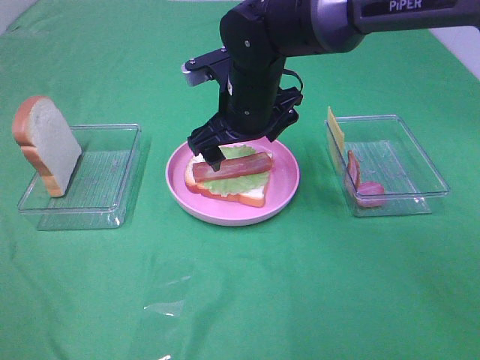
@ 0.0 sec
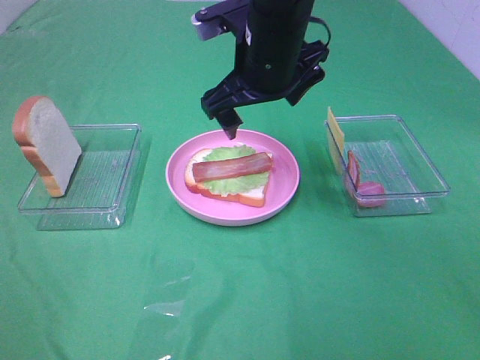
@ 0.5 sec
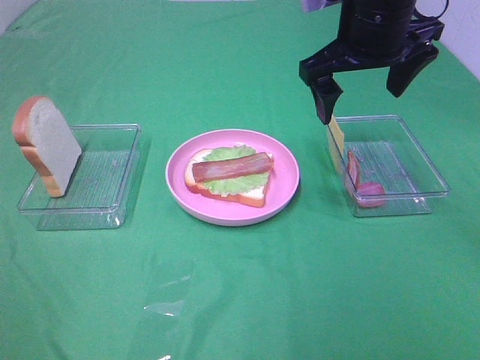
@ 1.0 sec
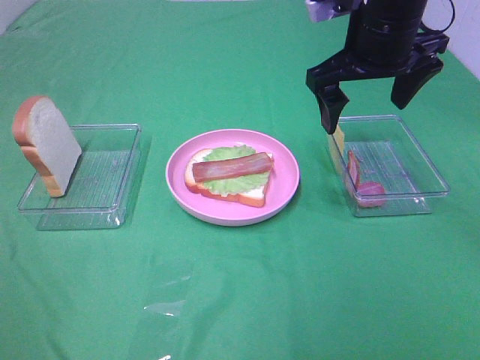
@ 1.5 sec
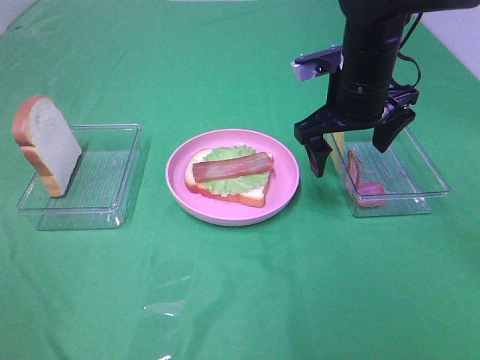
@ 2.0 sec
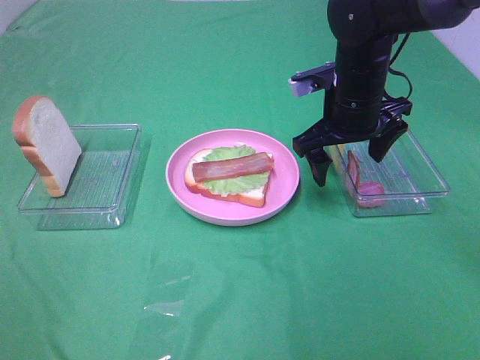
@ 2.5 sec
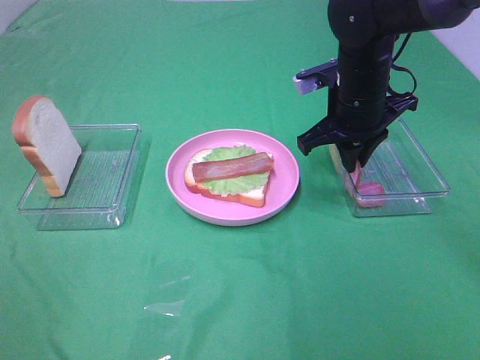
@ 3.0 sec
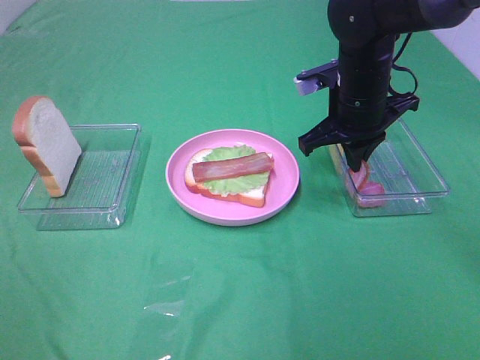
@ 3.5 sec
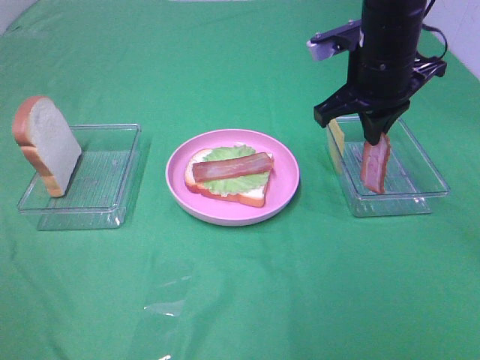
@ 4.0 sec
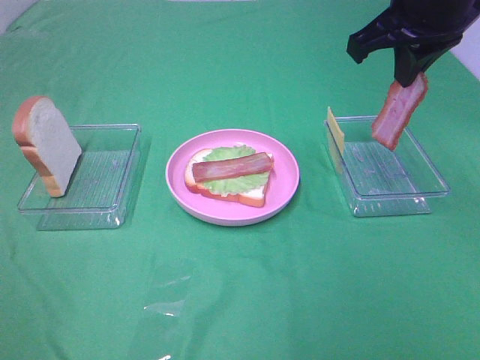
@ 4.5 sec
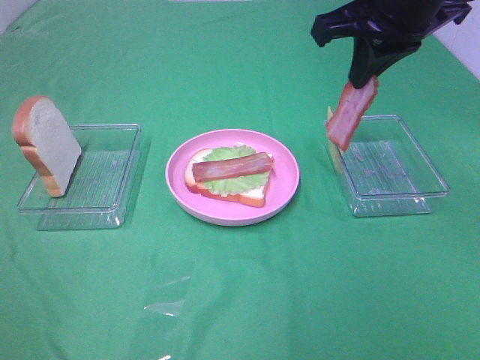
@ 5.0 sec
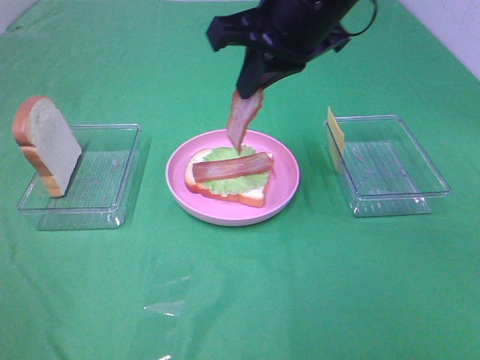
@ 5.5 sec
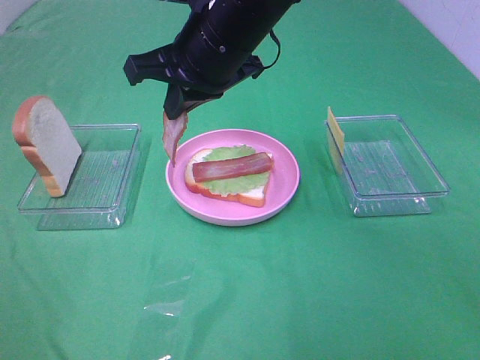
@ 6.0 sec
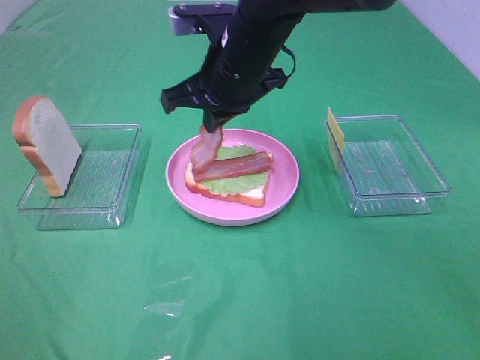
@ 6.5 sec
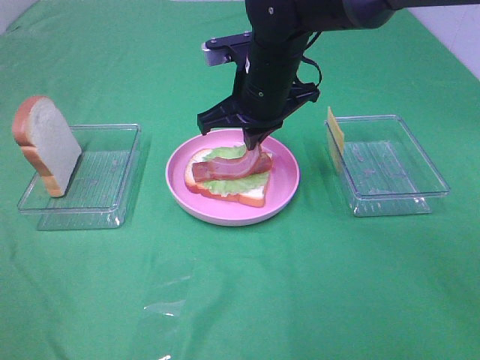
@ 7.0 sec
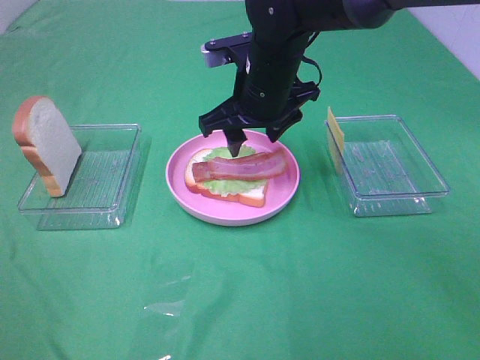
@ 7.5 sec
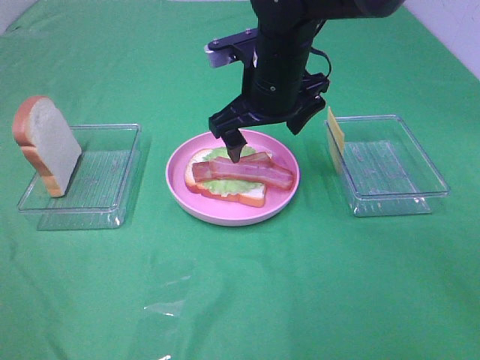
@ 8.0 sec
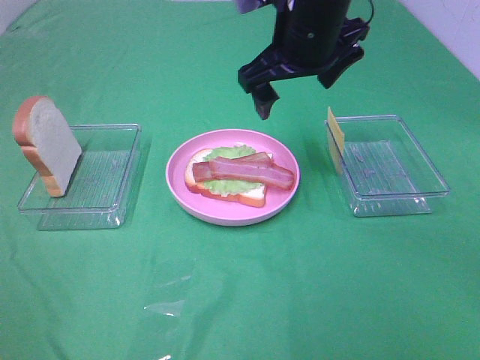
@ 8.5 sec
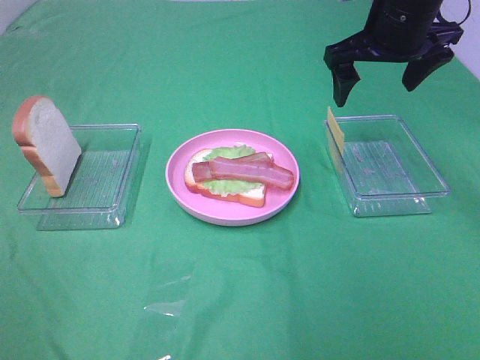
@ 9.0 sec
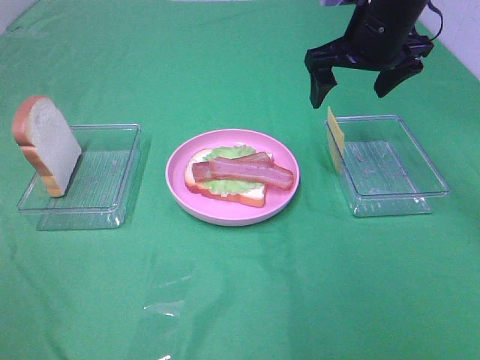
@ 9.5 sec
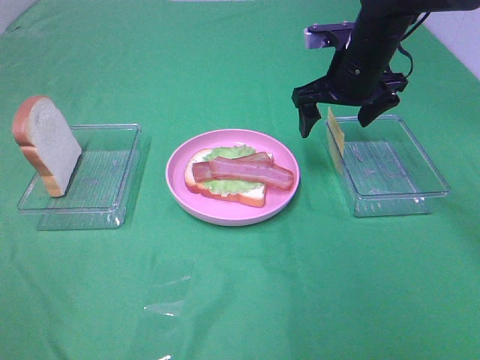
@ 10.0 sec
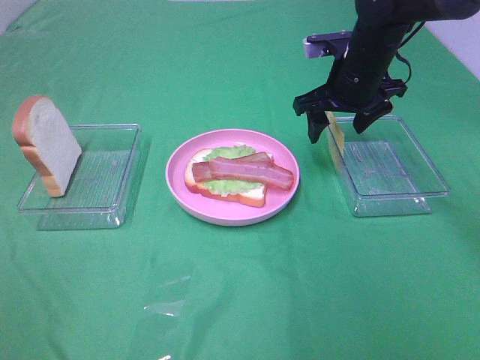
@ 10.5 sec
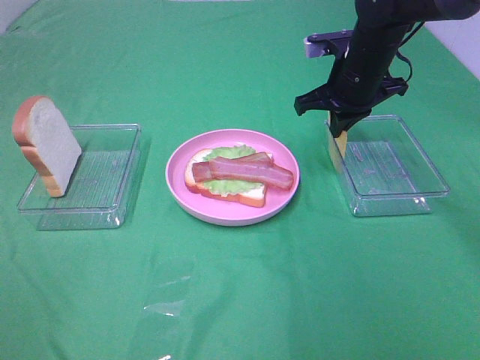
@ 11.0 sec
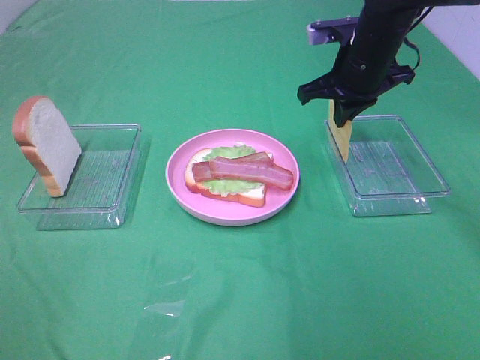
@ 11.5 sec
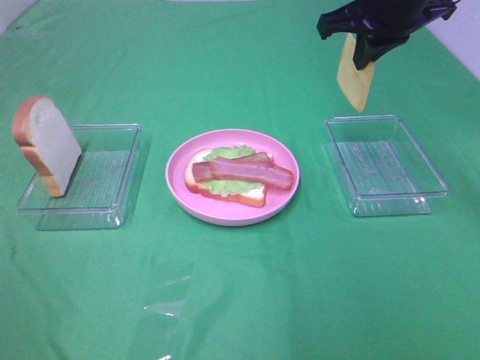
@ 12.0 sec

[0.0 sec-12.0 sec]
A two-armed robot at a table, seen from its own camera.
Task of the whole recording: Make sandwiches.
Step, 0.0 sec to 3.0 sec: Right hand:grab the bacon.
Step, 3.5 sec to 7.5 sec: Right hand:place bacon on bacon.
Step, 8.0 sec to 10.5 sec: Right hand:grab the cheese slice.
0.0 sec to 2.0 sec: The right gripper travels to the right by approximately 15 cm.
2.0 sec to 4.0 sec: The right gripper closes its fingers.
4.0 sec to 6.0 sec: The right gripper moves to the left, some 15 cm.
6.0 sec to 8.0 sec: The right gripper goes roughly 5 cm downward and to the right, and opens its fingers.
8.0 sec to 10.0 sec: The right gripper shifts some 15 cm to the right and forward.
10.0 sec to 12.0 sec: The right gripper heads upward, covering about 10 cm, and closes its fingers.

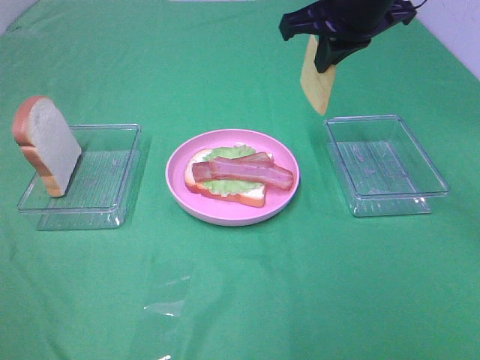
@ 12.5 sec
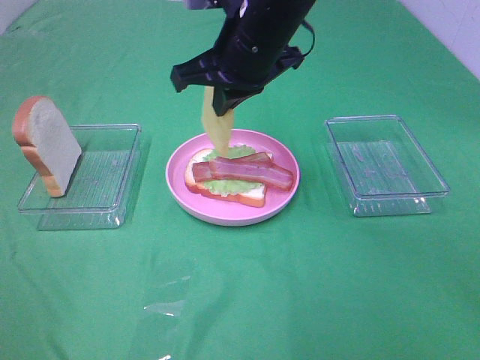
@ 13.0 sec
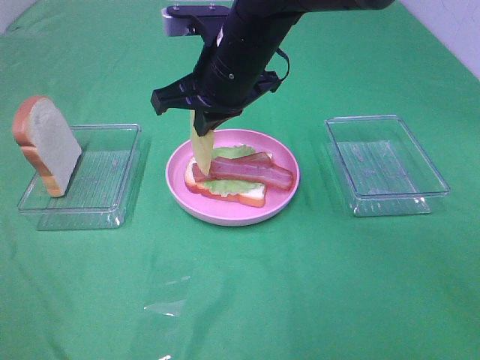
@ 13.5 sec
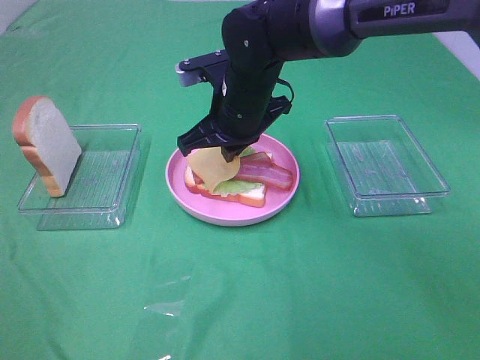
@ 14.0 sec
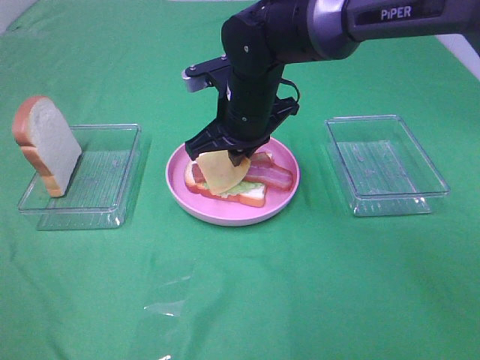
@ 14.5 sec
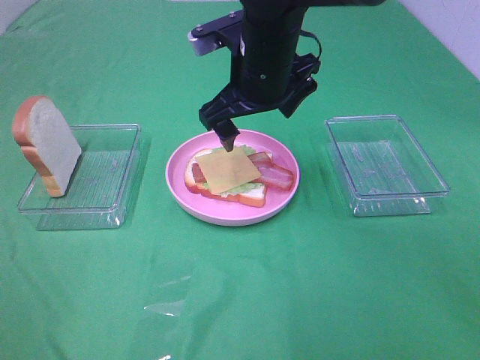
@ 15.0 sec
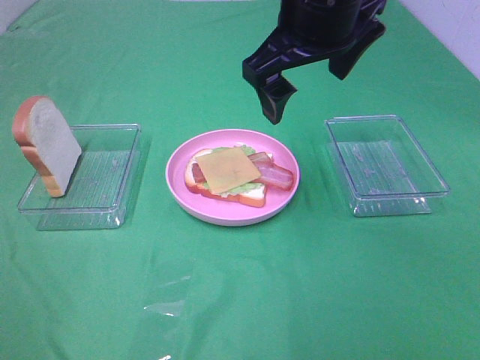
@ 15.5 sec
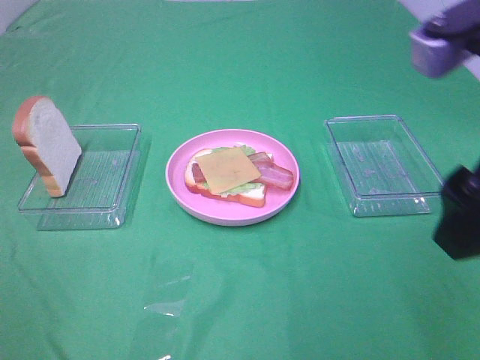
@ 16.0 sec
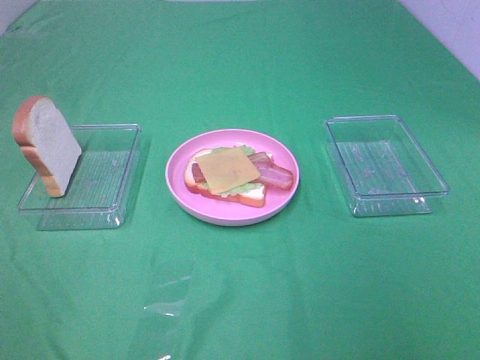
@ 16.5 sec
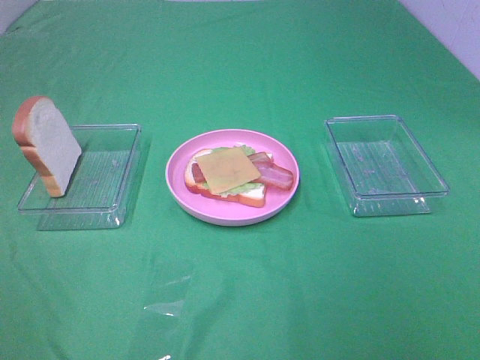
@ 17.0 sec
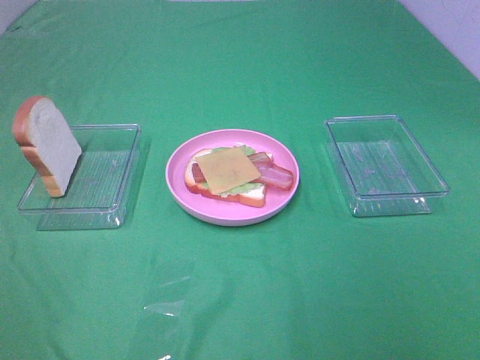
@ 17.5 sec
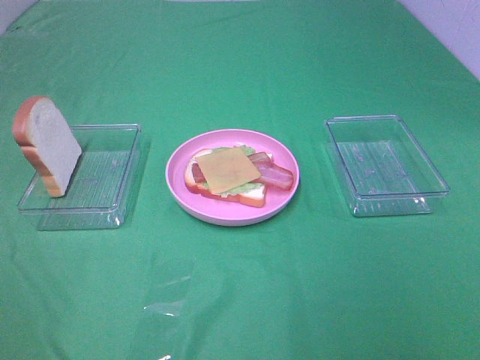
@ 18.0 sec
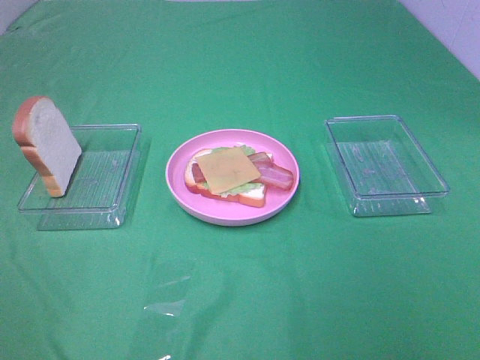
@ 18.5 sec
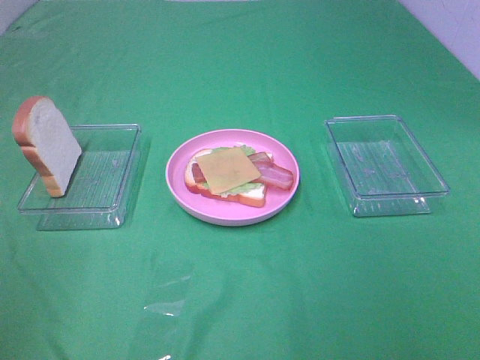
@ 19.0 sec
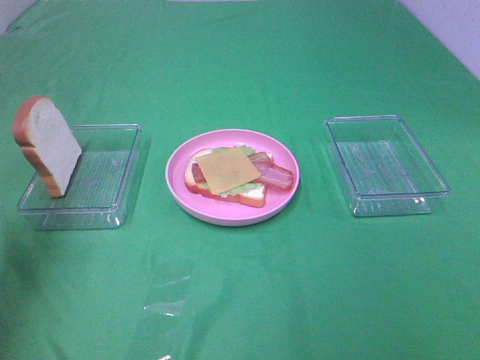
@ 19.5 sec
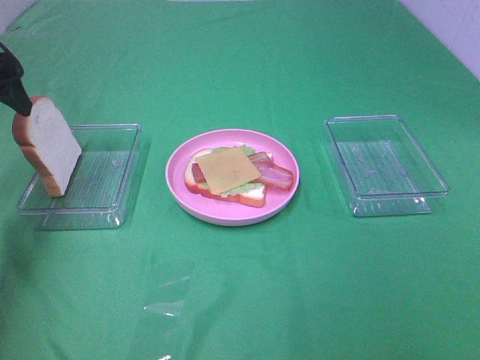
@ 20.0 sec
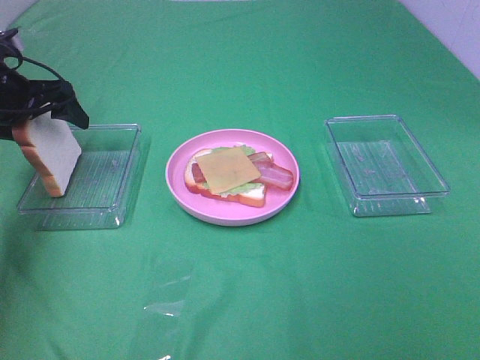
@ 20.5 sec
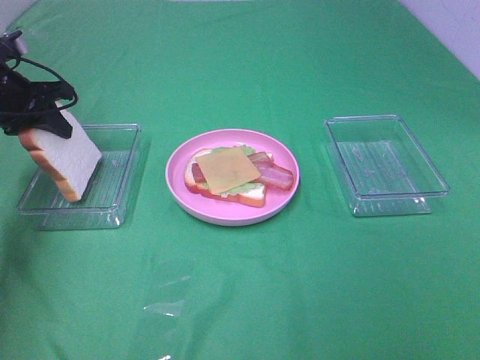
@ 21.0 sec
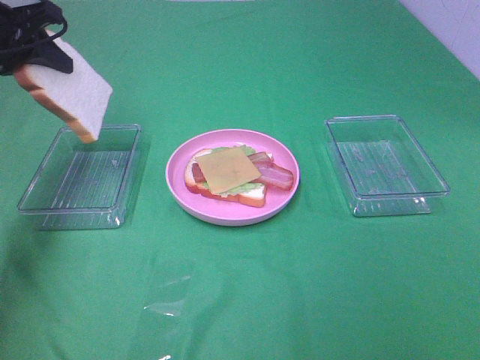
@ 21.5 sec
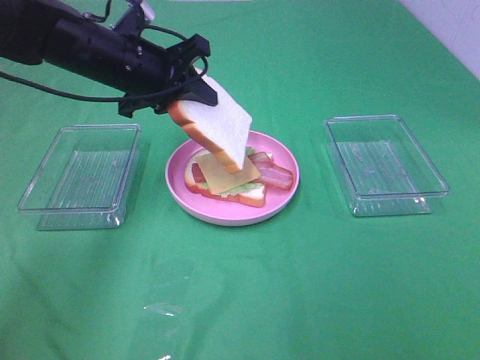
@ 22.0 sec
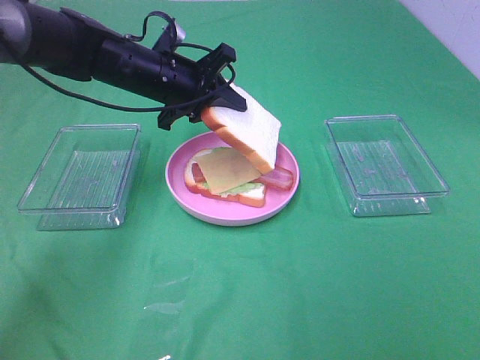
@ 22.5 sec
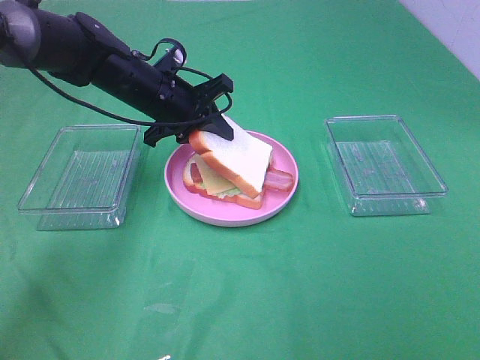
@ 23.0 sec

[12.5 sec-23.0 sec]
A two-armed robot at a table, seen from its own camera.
Task of the whole recording: Make sandwiches.
Step, 12.5 sec to 14.5 sec: Right hand:place the cheese slice on top of the bacon.
Step, 15.0 sec to 20.5 sec: Left hand:grab the bread slice.
12.5 sec to 14.5 sec: The right gripper shifts roughly 15 cm downward and to the left.
14.5 sec to 16.5 sec: The right gripper moves backward and to the right, approximately 40 cm, and opens its fingers.
19.0 sec to 21.0 sec: The left gripper is displaced forward and downward by about 40 cm, and closes up.
21.0 sec to 23.0 sec: The left gripper shifts approximately 20 cm to the right.

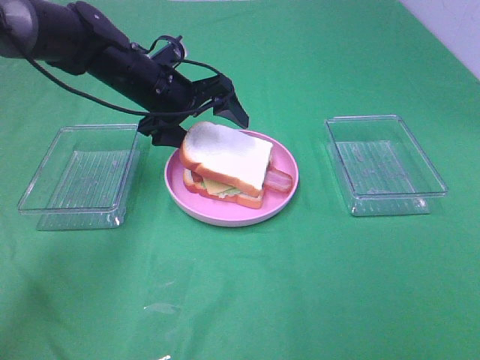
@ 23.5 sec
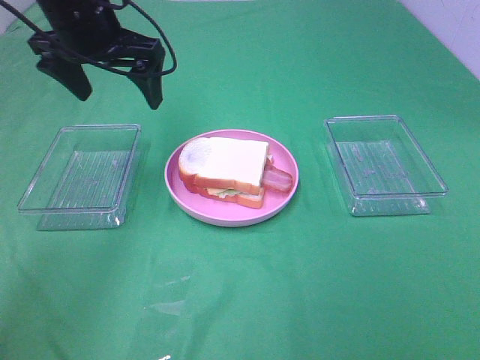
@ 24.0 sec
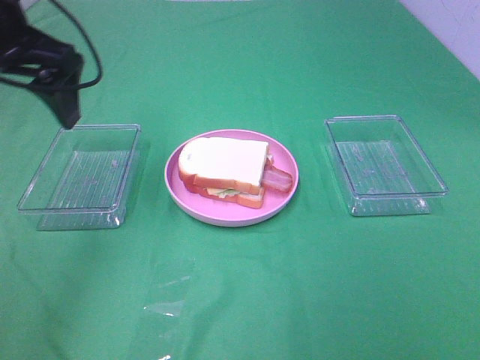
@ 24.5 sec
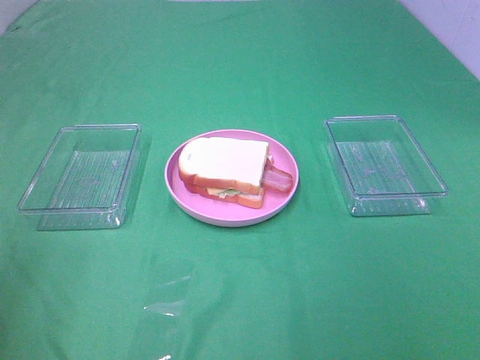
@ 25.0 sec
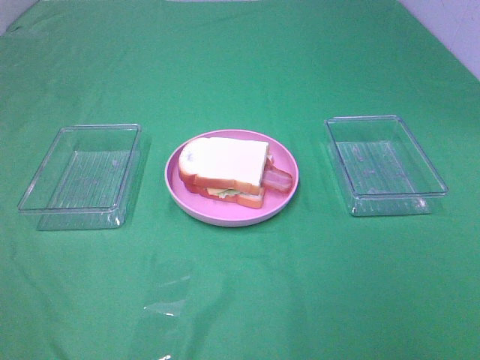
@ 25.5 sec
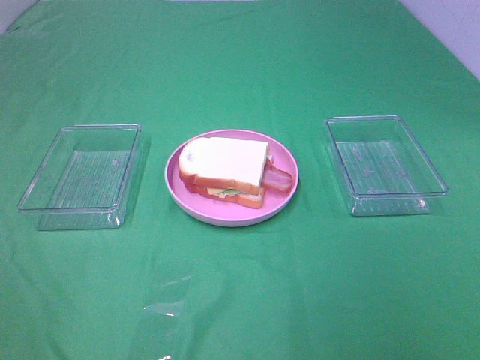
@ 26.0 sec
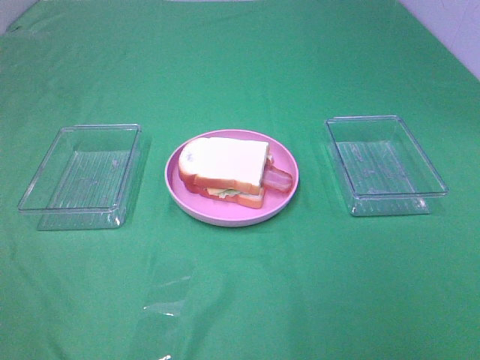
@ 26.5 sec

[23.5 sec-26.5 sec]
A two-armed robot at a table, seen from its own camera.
Task of the whole recording: Make sandwiches.
23.5 sec to 25.0 sec: The left gripper is displaced backward, to the left and upward by some 40 cm.
